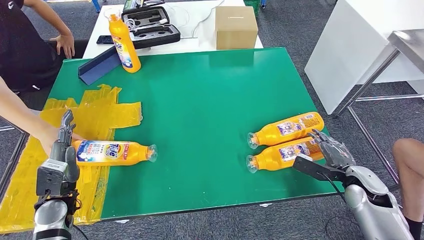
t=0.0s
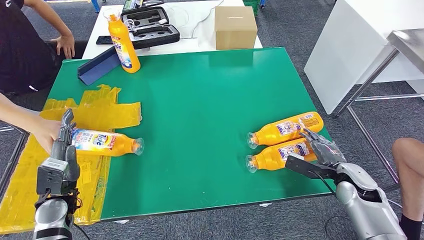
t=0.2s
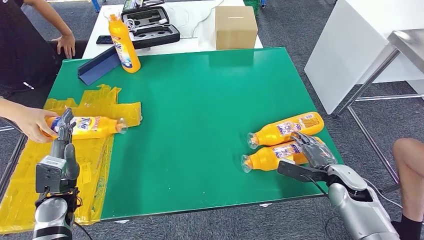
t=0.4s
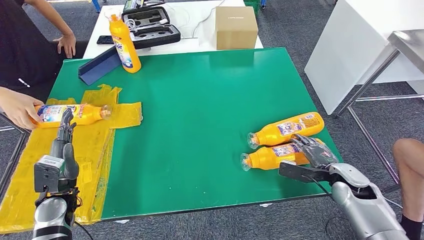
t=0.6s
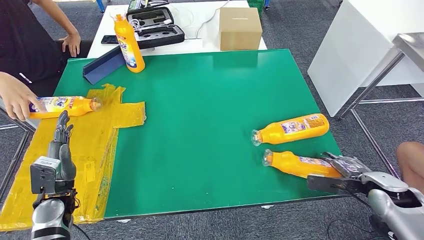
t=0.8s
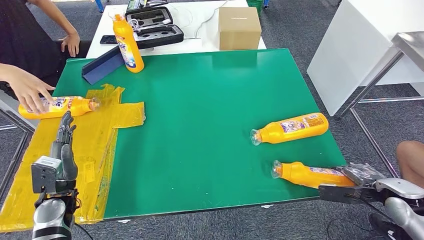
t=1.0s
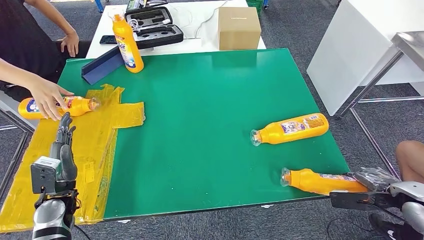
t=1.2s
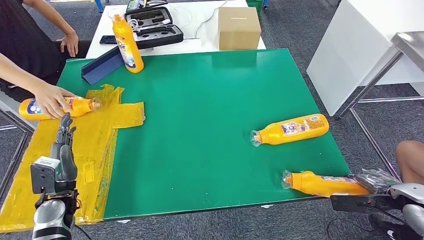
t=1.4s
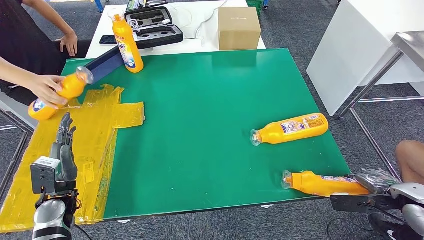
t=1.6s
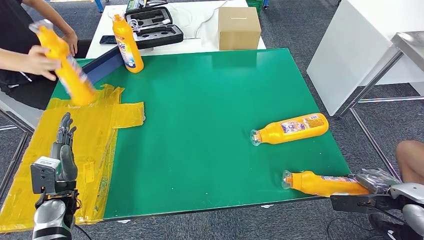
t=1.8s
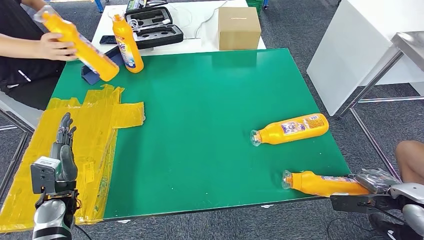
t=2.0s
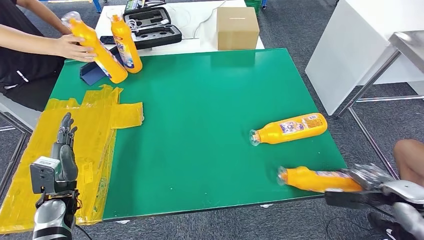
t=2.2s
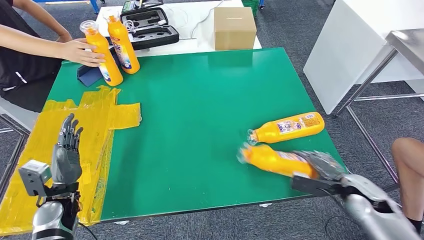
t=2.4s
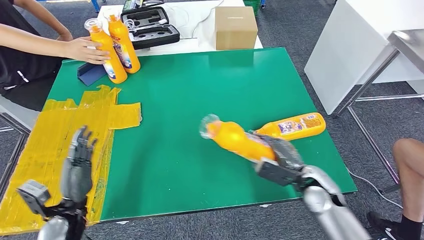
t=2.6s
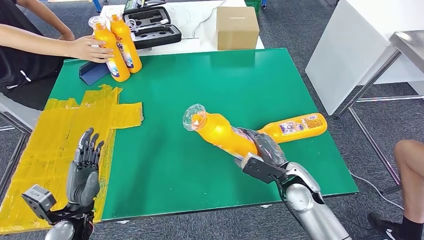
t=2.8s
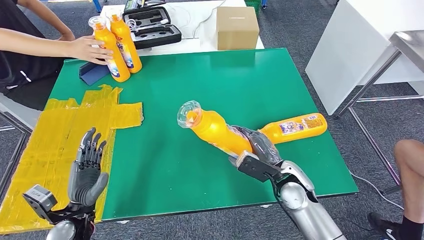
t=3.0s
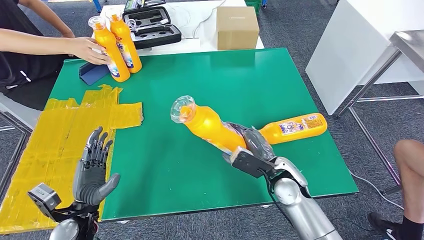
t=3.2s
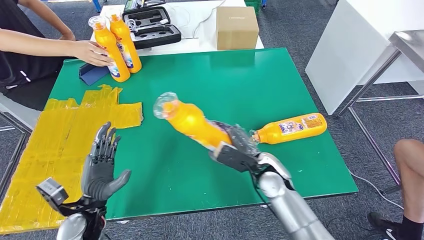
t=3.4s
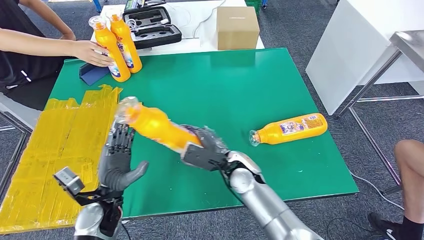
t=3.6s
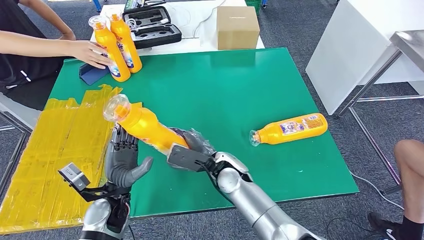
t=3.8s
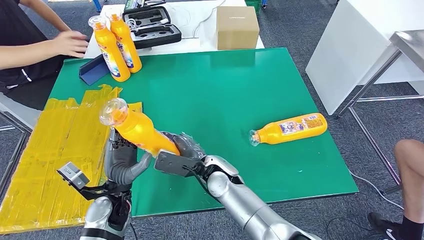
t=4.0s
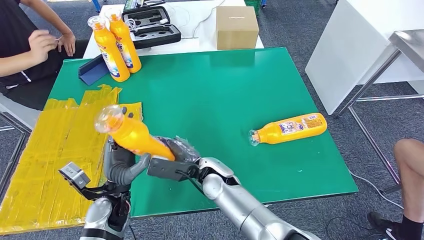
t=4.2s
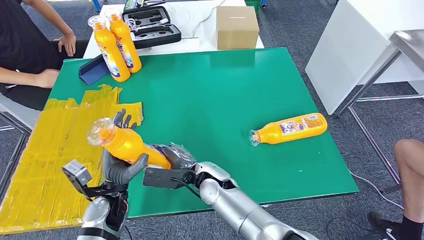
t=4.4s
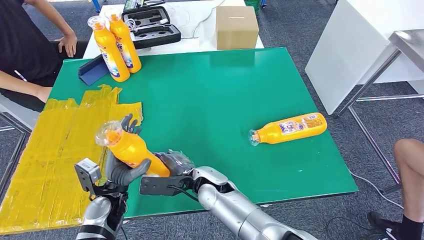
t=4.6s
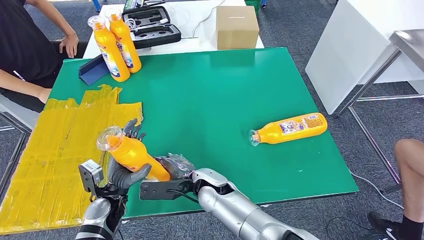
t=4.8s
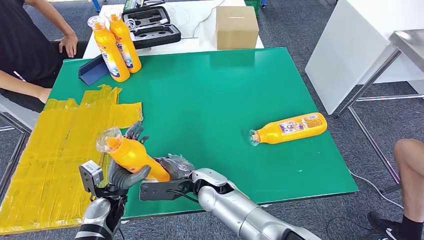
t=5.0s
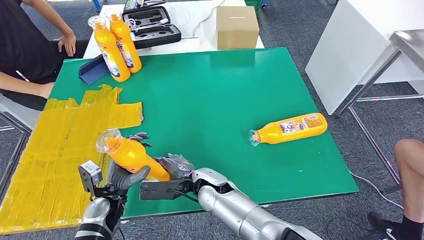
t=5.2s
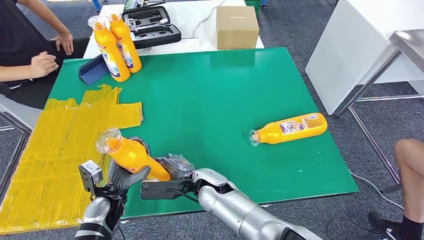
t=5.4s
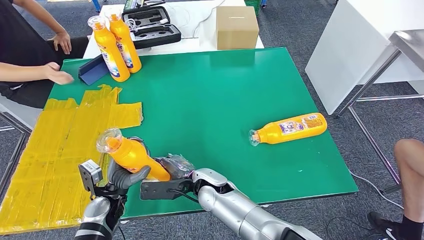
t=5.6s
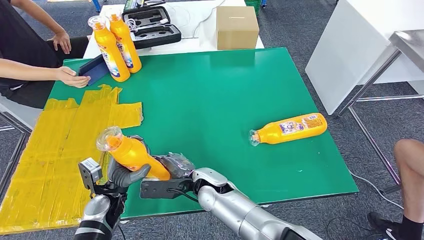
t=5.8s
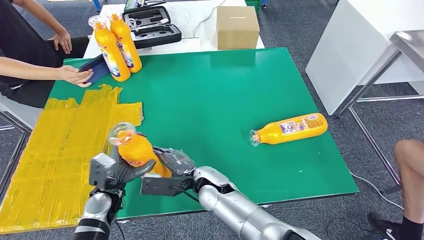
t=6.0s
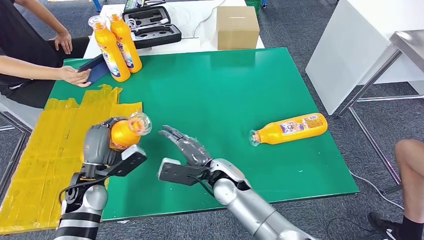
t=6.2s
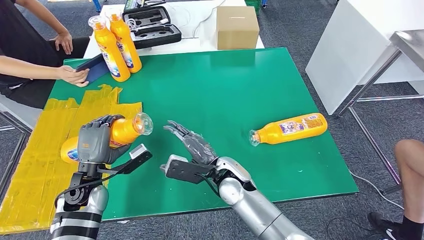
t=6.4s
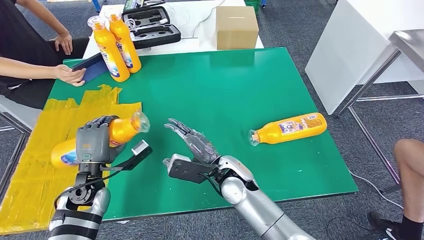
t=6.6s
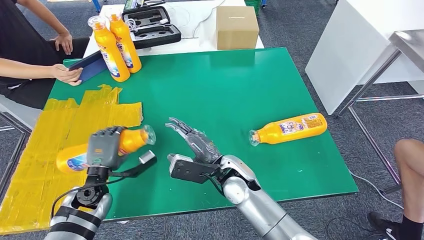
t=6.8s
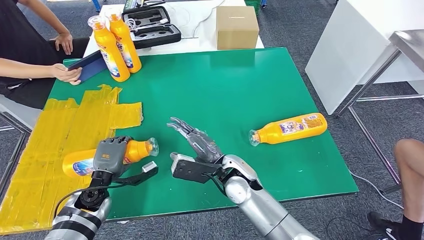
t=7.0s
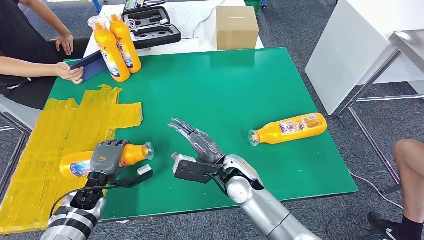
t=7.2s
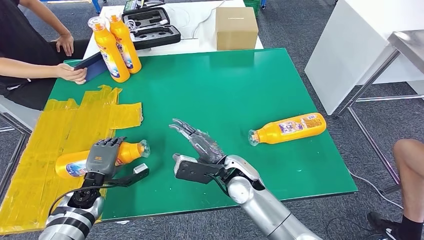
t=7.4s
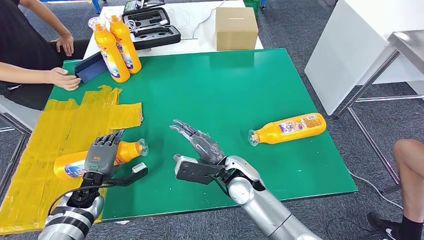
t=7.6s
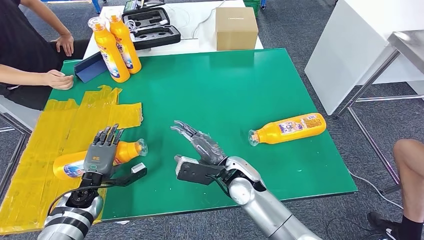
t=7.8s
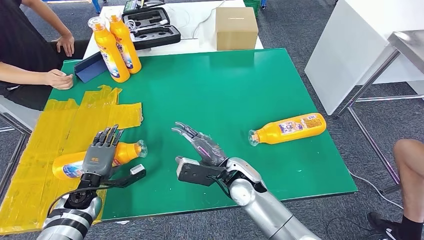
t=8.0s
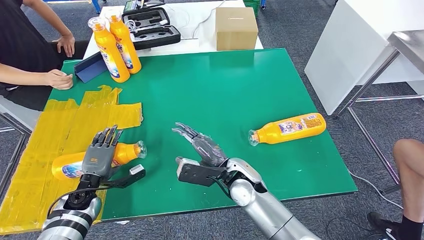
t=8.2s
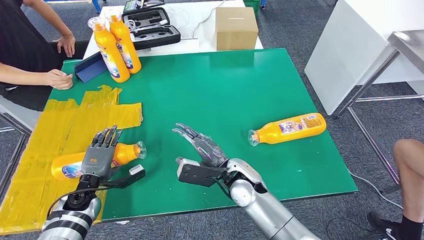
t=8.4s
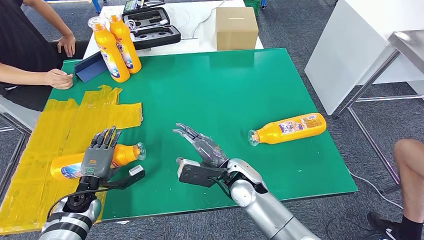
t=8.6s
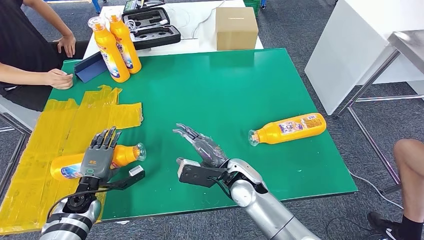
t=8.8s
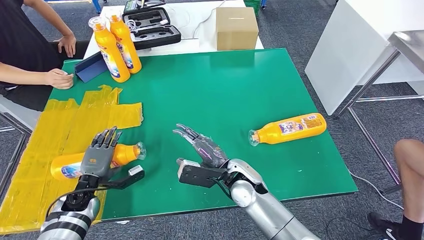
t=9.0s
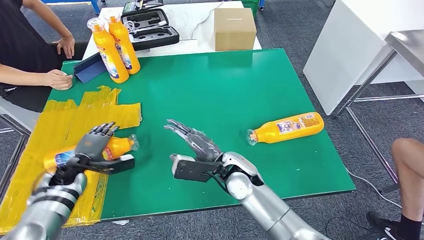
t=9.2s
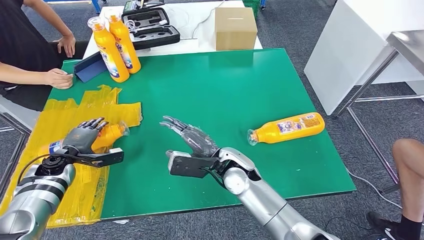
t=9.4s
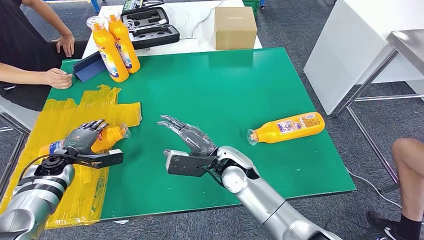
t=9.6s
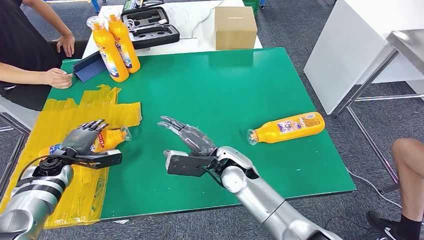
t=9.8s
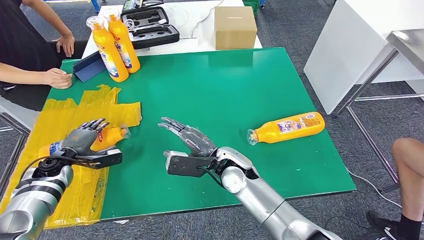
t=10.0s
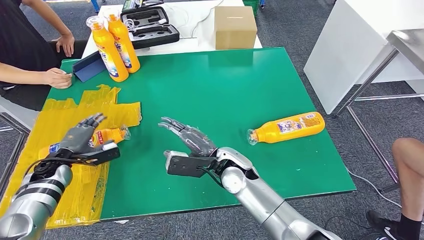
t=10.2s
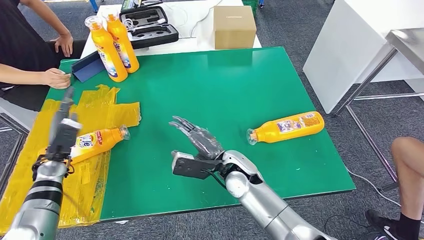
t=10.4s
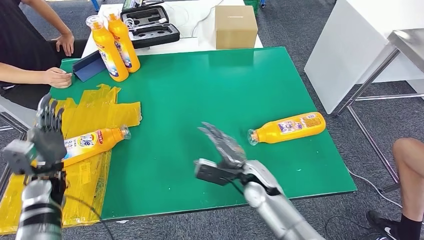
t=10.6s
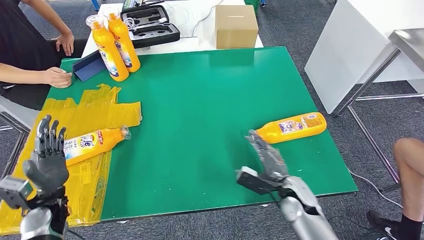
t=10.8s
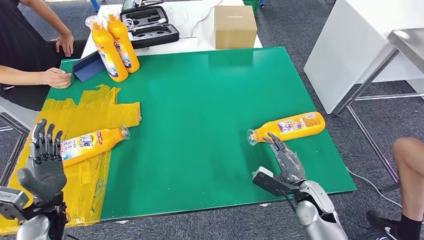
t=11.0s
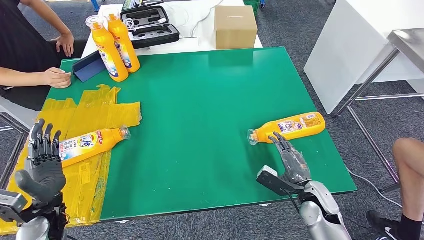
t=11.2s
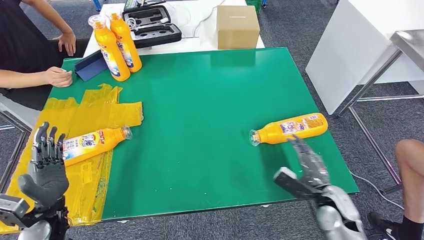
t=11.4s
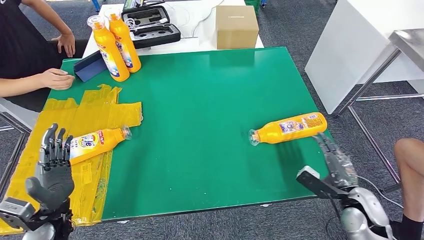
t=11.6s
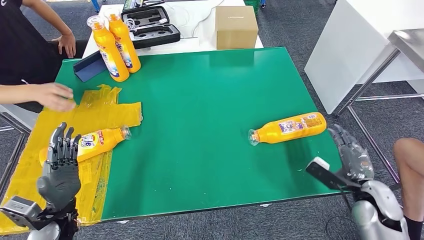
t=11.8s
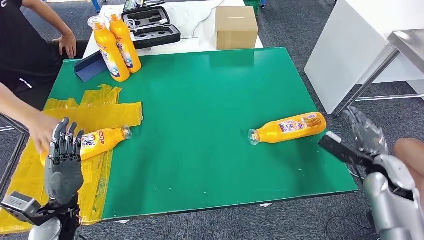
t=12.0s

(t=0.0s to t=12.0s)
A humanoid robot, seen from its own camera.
Step, t=0.0s - t=3.8s: Pick up the bottle from the table.
Step, t=4.0s - t=8.2s: Flip the bottle to face forward.
t=4.4s - t=6.0s: The left hand changes place by roughly 5 cm.
t=7.6s - t=9.0s: The two hands keep their place.

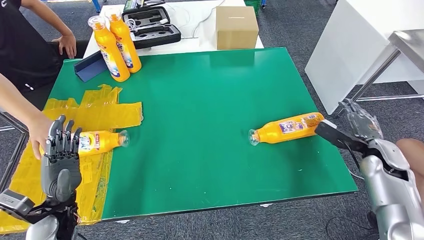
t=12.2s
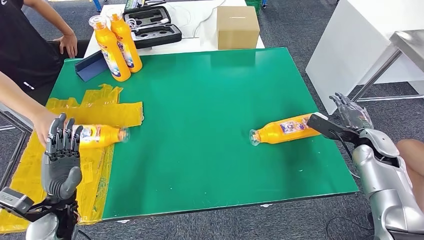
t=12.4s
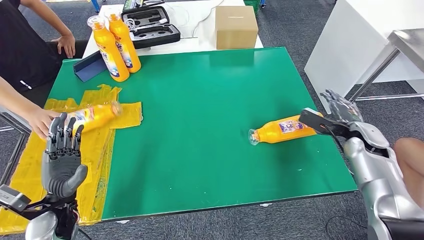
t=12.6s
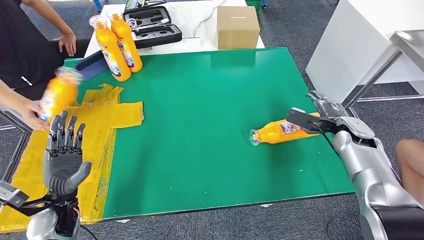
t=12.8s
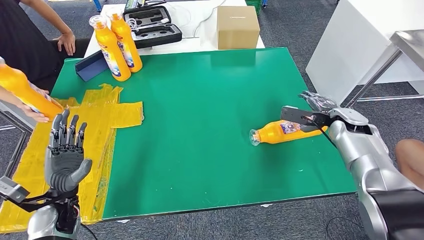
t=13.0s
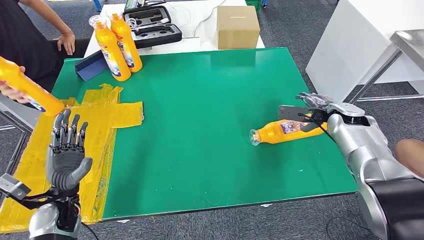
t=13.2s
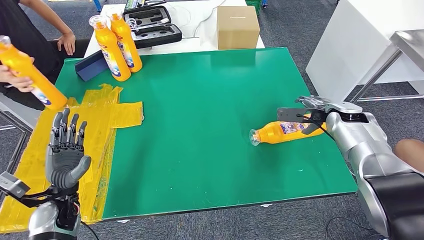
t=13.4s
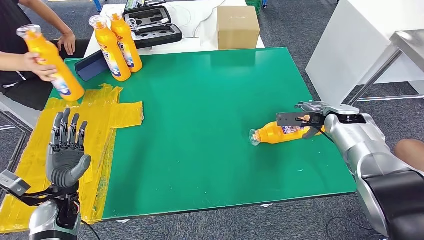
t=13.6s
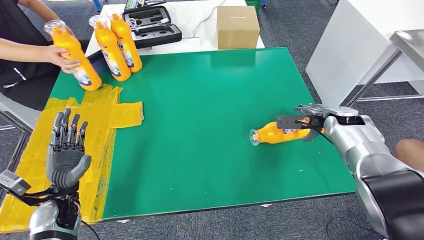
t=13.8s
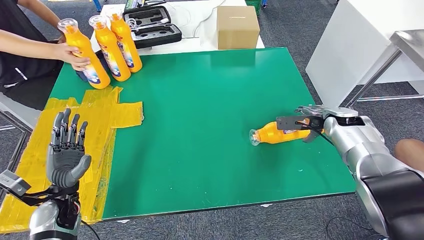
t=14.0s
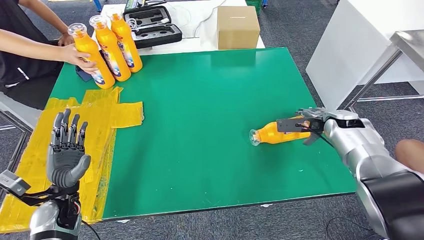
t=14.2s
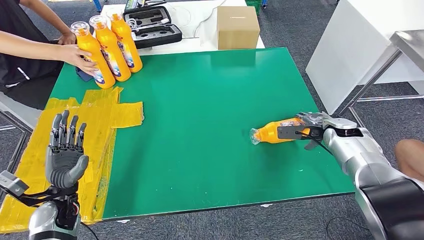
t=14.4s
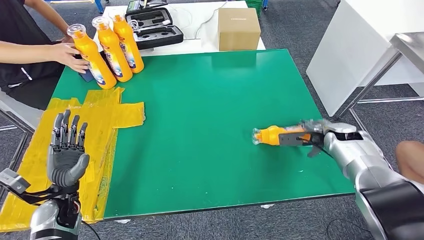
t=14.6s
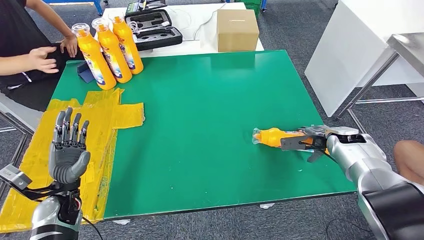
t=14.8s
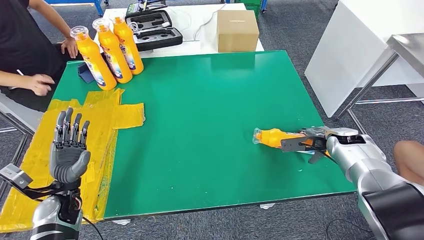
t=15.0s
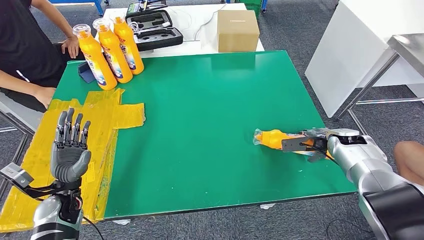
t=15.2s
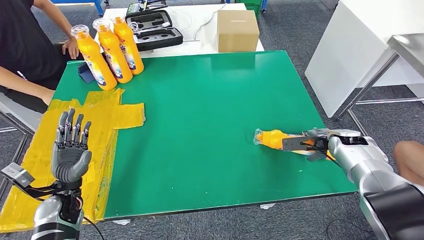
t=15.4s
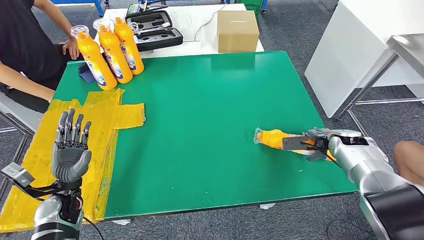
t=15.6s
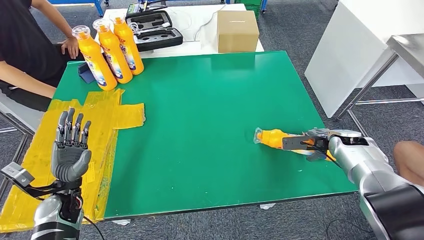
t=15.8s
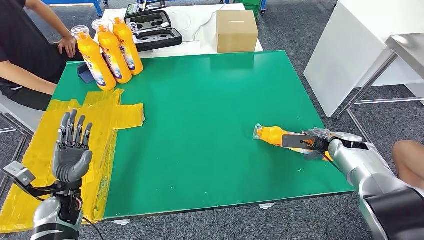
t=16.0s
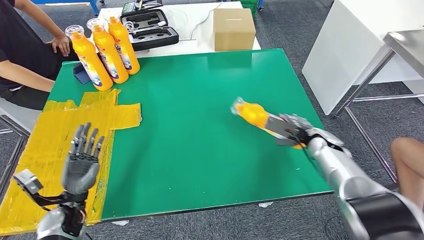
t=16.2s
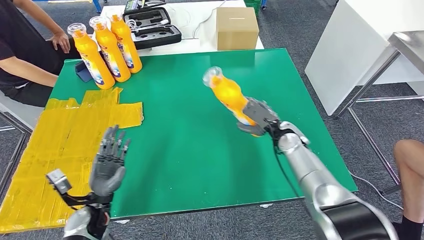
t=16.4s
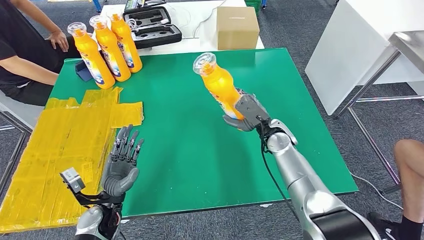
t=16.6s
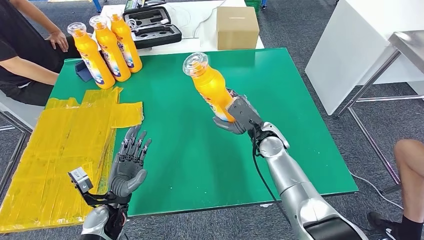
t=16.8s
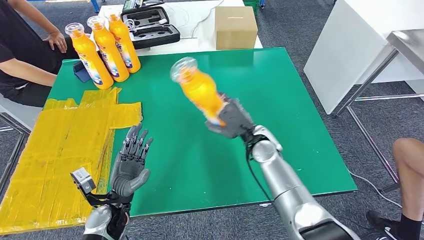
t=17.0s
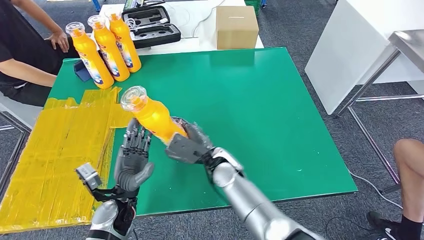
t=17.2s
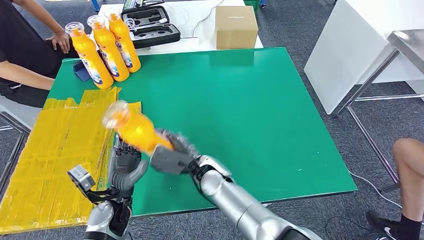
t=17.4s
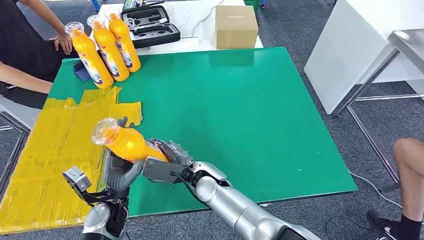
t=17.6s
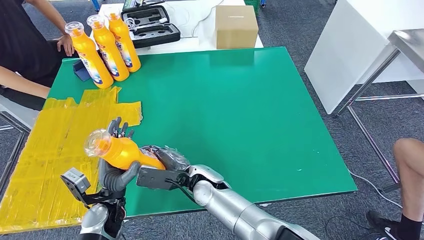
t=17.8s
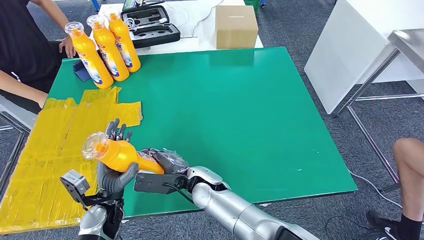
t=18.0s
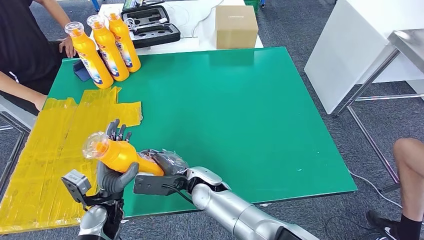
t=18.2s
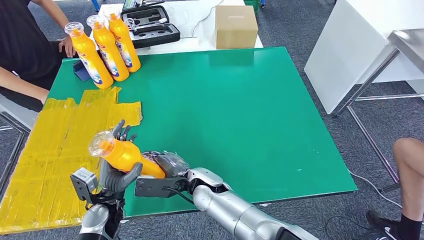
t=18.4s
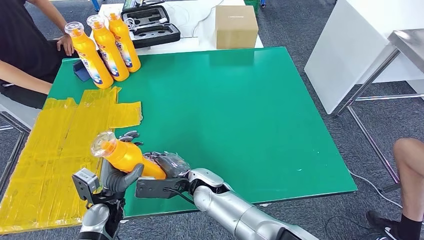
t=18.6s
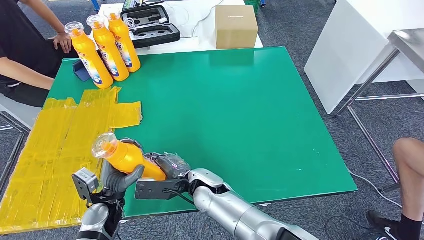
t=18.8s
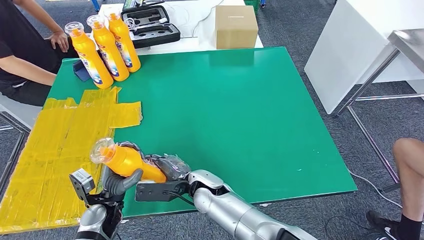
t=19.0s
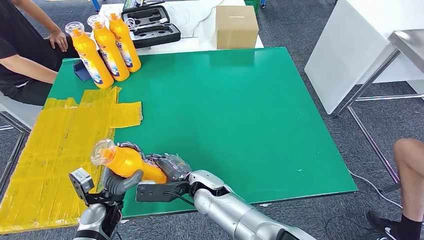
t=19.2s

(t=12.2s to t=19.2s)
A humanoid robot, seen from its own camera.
Step, t=12.2s - t=17.2s: Pick up the bottle from the table.
t=17.8s - t=19.2s: The hands make only small movements.
